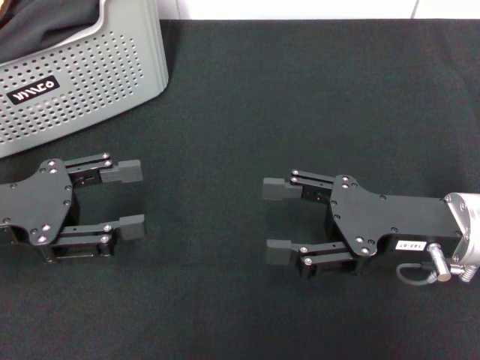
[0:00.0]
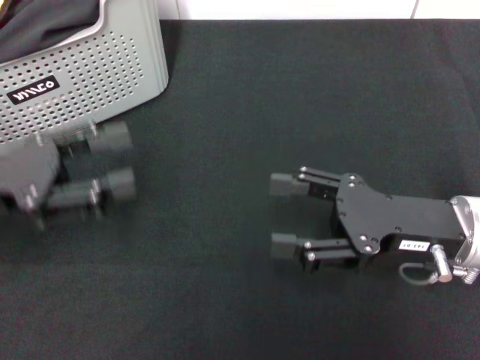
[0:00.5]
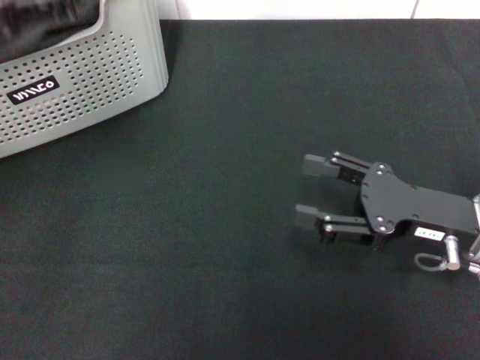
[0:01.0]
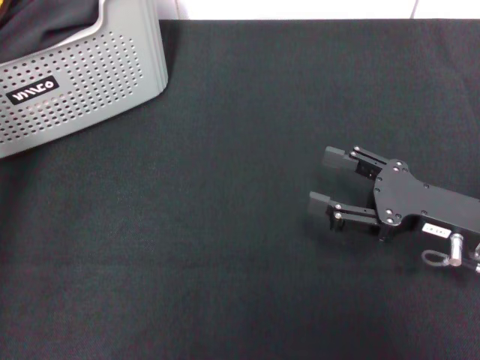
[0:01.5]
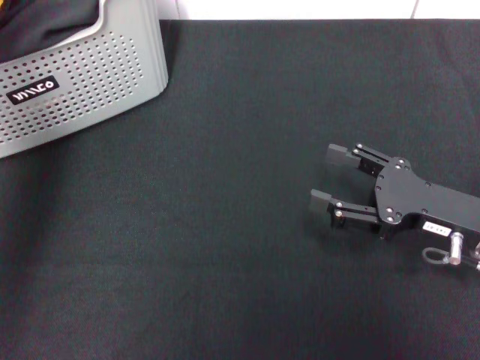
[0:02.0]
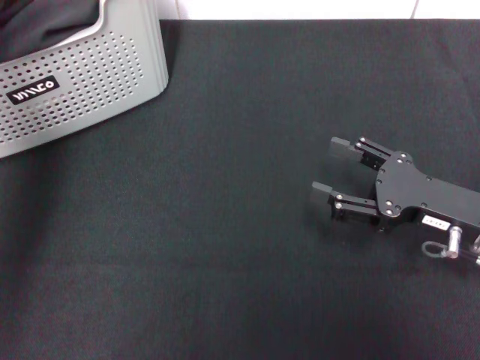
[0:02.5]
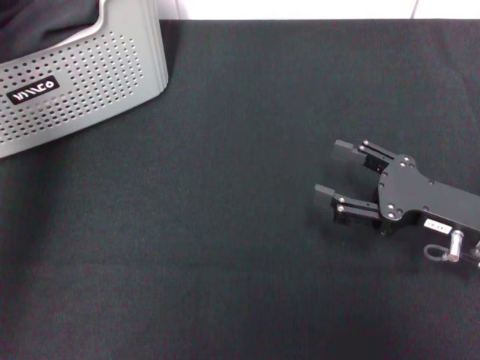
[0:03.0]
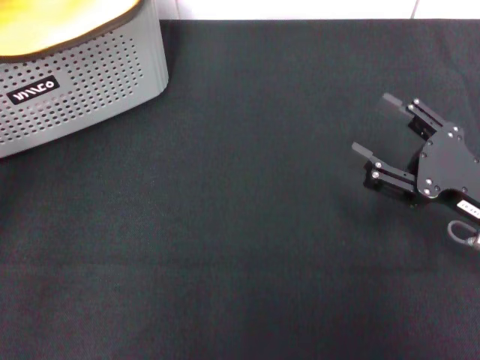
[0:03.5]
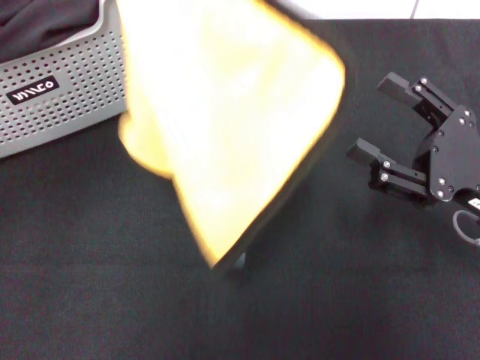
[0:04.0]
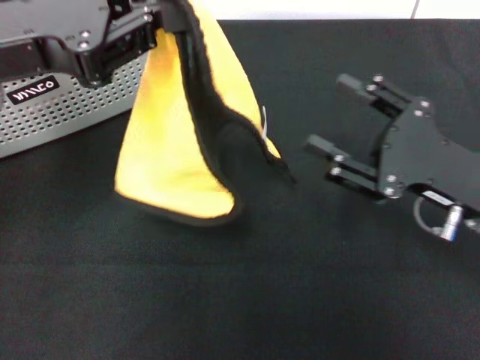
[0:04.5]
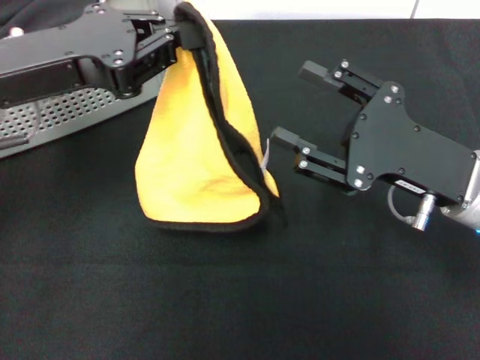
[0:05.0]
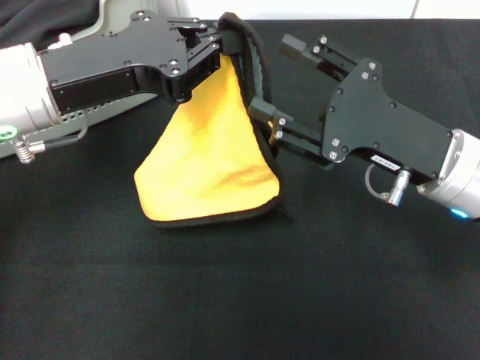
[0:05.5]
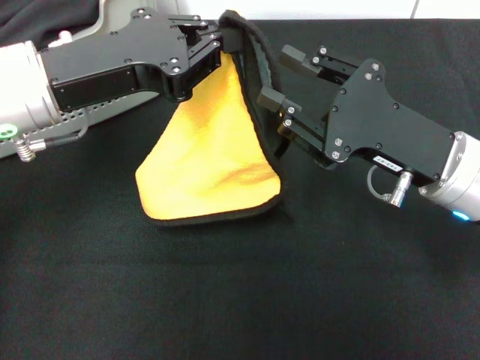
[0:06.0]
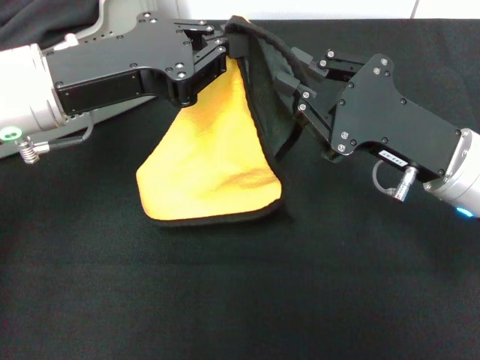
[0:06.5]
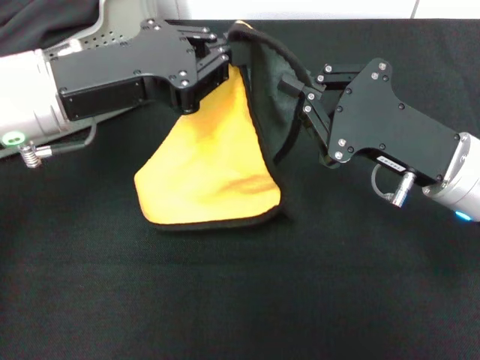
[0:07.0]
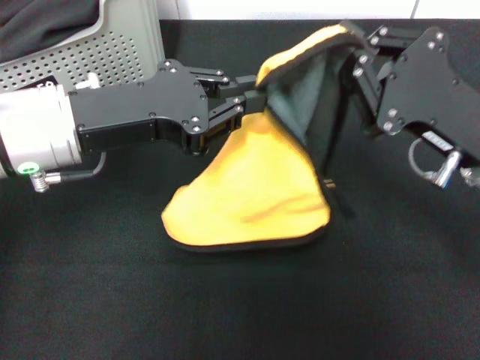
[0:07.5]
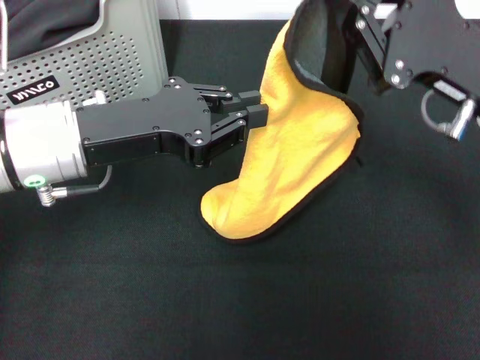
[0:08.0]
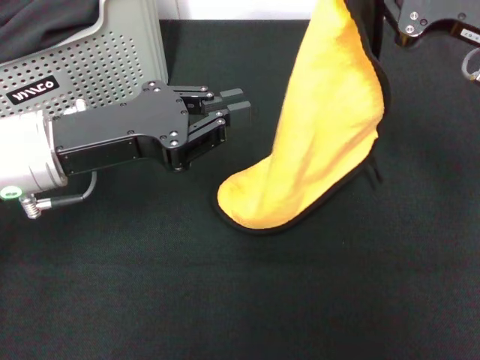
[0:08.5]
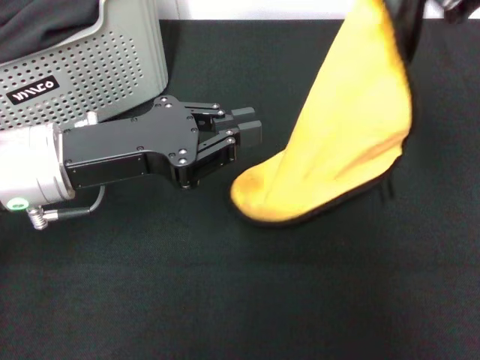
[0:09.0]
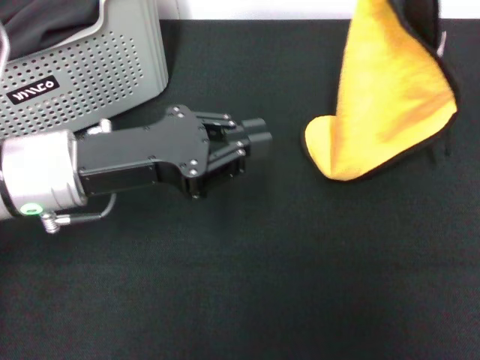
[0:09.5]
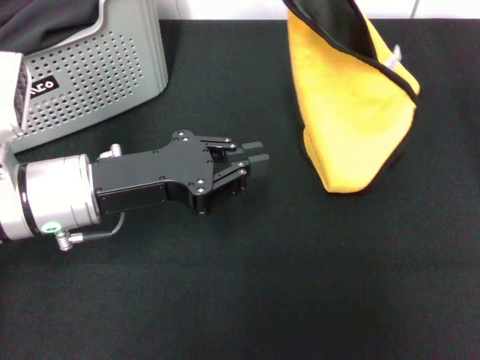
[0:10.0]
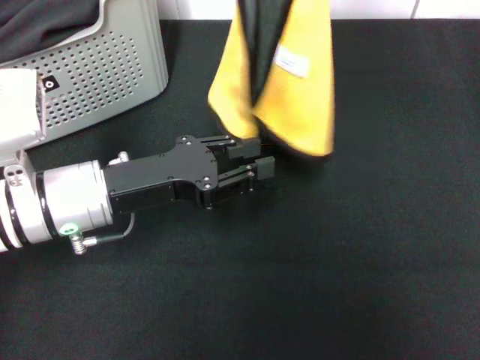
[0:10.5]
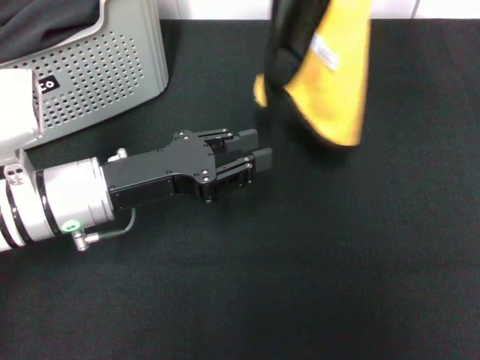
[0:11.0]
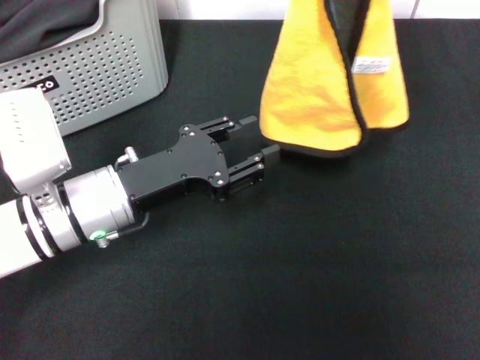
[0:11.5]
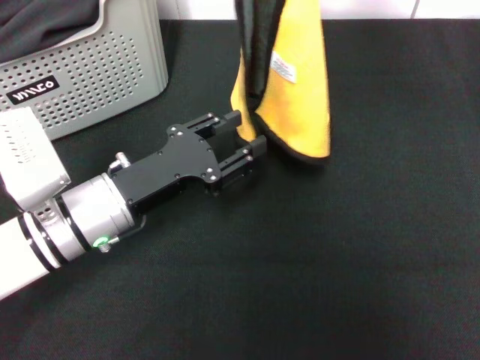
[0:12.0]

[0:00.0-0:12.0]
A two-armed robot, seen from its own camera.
Task of the whole recording: pick up the towel from the storage box and lay it flat on the black tablecloth.
Step, 0:00.0 to 0:02.5: Pick up a towel with the left gripper.
Step, 0:03.0 to 0:06.5: Spread the towel flat with the left gripper.
0:00.0 to 0:02.0: The right gripper ends up about 5 cm from where it was. Meanwhile the left gripper goes about 20 cm upward and forward.
0:02.0 to 0:04.0: The left gripper moves backward, roughly 10 cm, and closes.
0:04.0 to 0:06.0: The left gripper heads downward, covering about 10 cm, while the right gripper travels to the left by some 5 cm, and closes.
0:06.0 to 0:08.0: The right gripper goes some 5 cm upward, and closes its fingers.
0:08.0 to 0:10.0: The left gripper goes approximately 5 cm downward. The right gripper is displaced upward and to the left by approximately 20 cm.
0:10.0 to 0:12.0: The left gripper travels downward by approximately 5 cm, and opens.

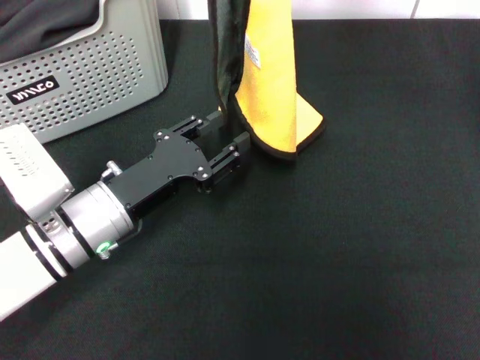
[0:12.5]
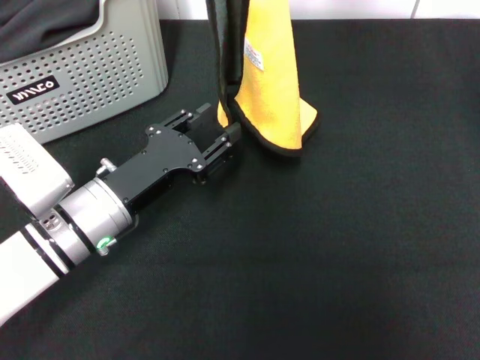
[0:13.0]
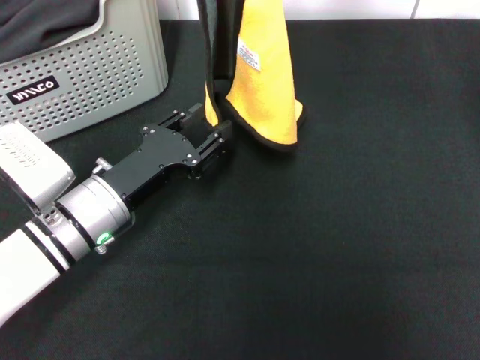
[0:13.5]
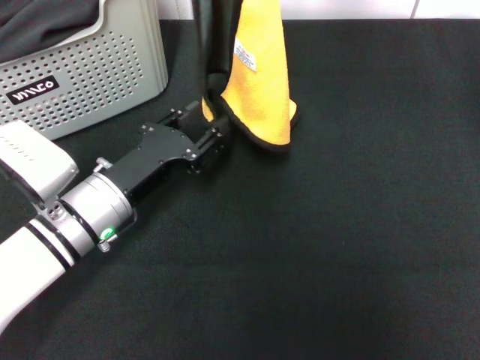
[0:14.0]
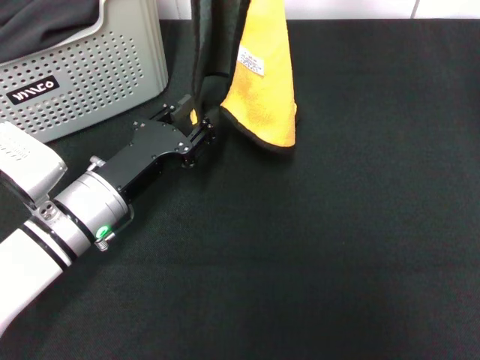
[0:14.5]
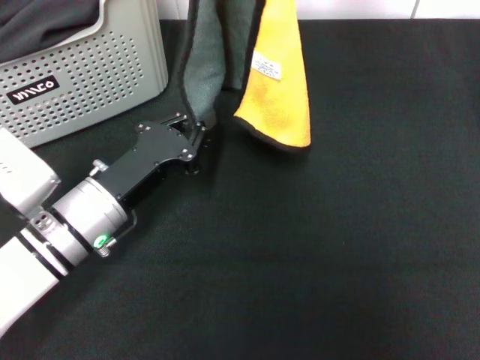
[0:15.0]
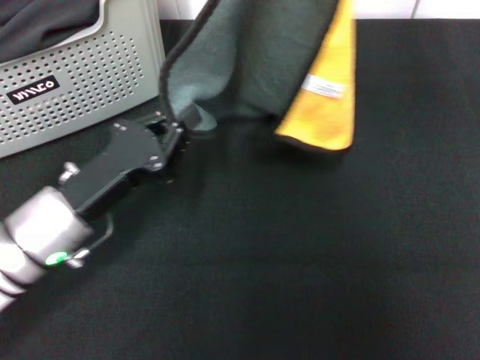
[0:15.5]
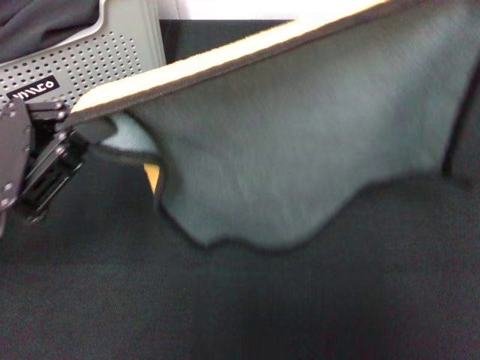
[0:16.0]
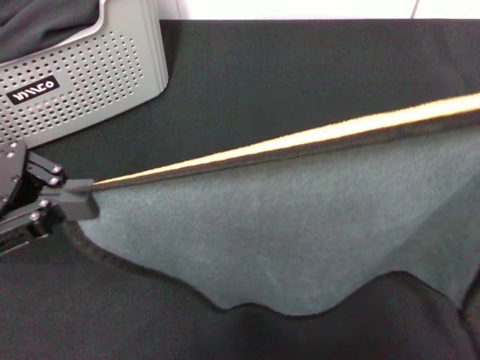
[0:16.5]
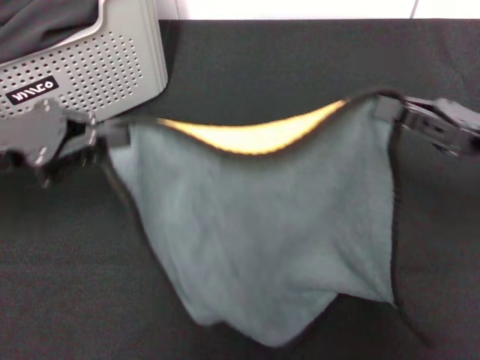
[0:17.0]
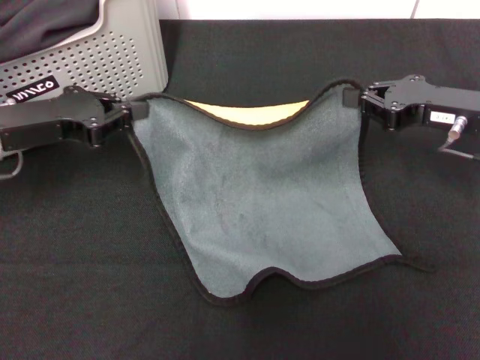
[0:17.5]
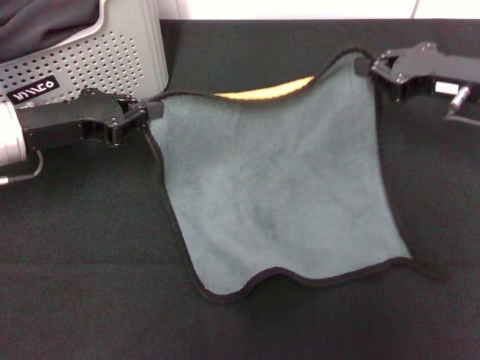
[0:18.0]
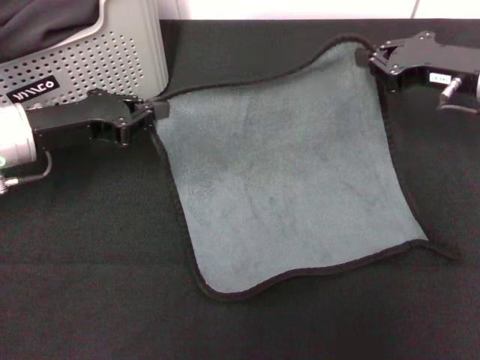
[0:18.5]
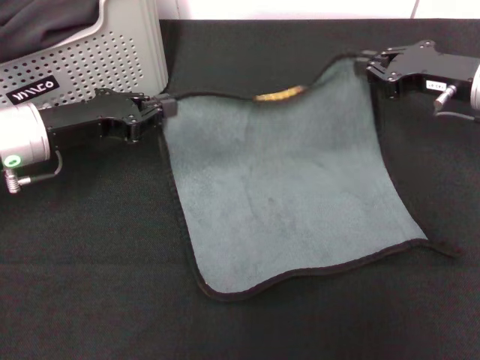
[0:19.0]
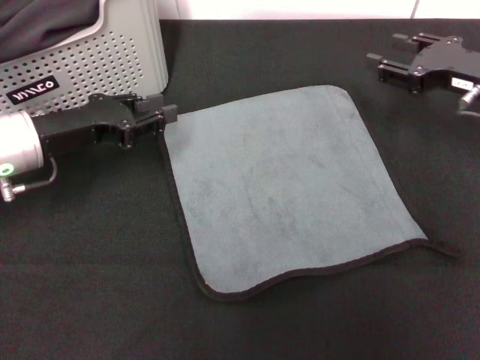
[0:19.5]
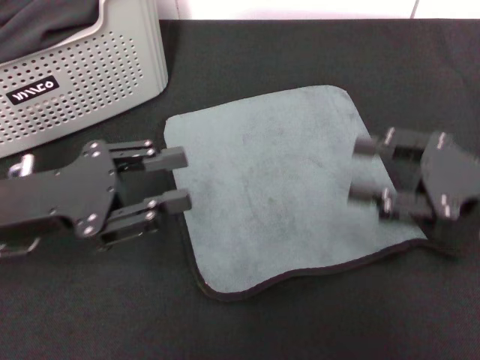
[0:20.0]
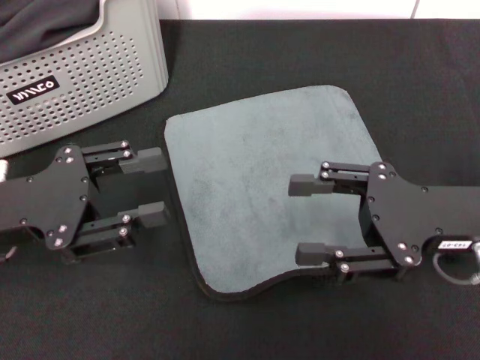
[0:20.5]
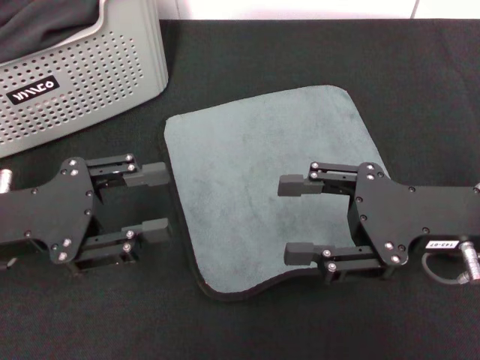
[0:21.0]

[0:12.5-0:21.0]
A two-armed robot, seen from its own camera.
Task of the whole recording: pick up the towel from the storage box and lay it flat on the black tablecloth.
Step, 0:12.5 to 0:19.0: Spread the towel flat with the right gripper.
0:12.5 to 0:14.5: There are only small adjustments of the grippers.
0:14.5 to 0:16.5: The left gripper moves upward and to the left, some 20 cm, and closes up. Meanwhile the right gripper moves to the right, downward and backward, roughly 30 cm.
0:16.5 to 0:19.0: The right gripper goes roughly 15 cm forward and to the left; the left gripper goes roughly 10 cm forward and downward.
0:19.0 to 0:21.0: Both grippers move backward, roughly 10 cm. The left gripper opens. The right gripper opens up.
